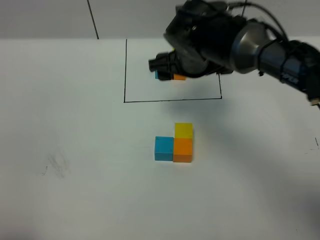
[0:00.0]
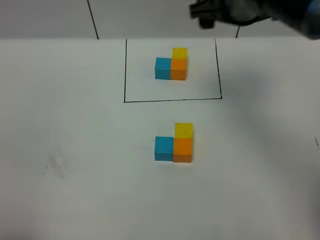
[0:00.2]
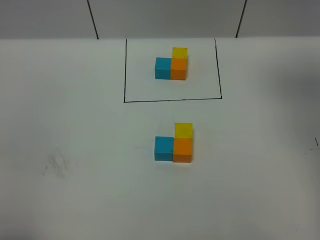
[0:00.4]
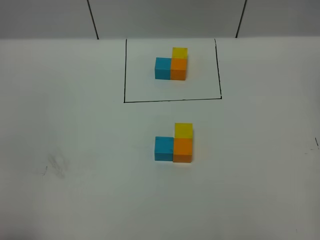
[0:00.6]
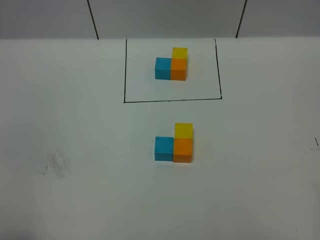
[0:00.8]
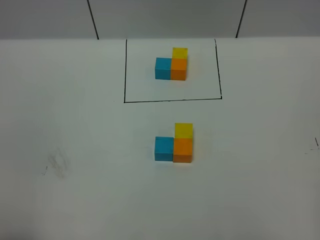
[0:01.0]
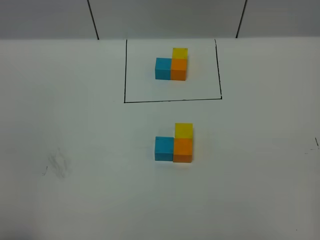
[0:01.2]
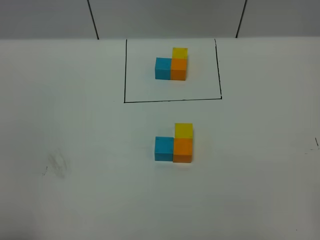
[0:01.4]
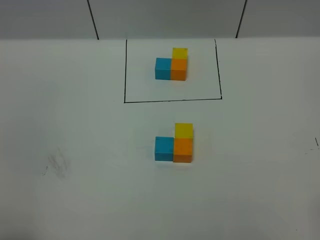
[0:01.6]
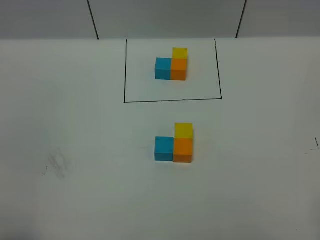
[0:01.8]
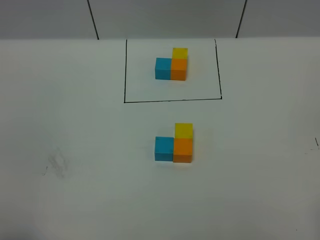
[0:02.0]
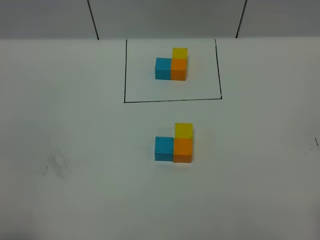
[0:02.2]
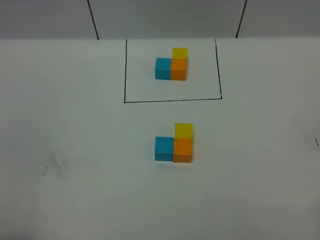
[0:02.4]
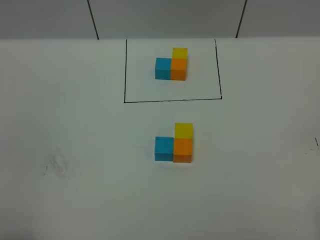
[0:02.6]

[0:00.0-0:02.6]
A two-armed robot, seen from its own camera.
Task of the whole recording: According to the building block template in front, assemble the scattered blocks together.
0:00.0 to 0:01.2: The right gripper goes roughly 50 cm backward, to the right and upward.
